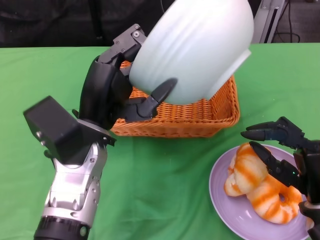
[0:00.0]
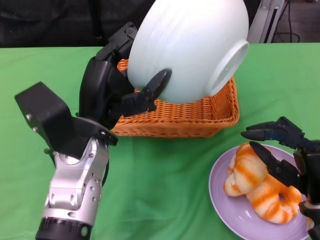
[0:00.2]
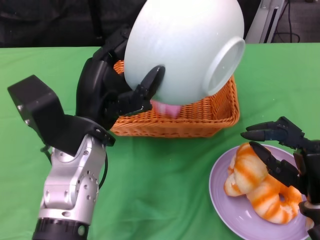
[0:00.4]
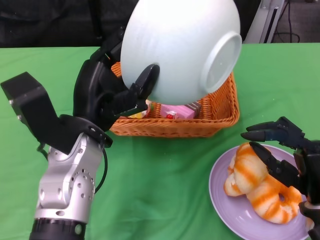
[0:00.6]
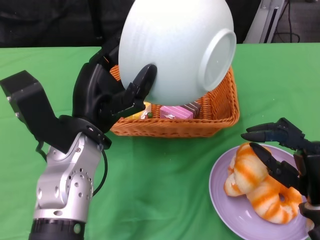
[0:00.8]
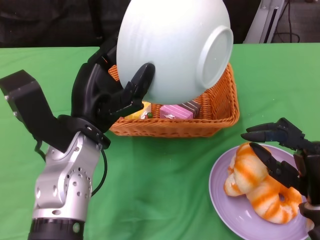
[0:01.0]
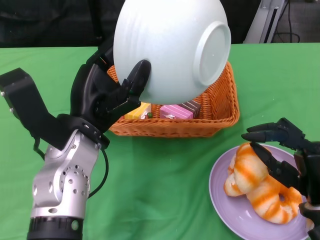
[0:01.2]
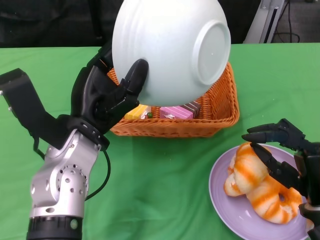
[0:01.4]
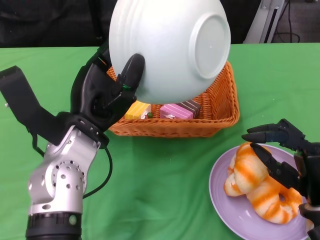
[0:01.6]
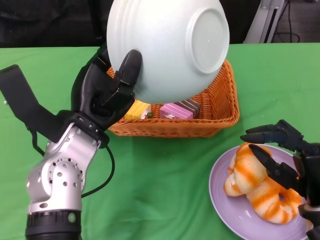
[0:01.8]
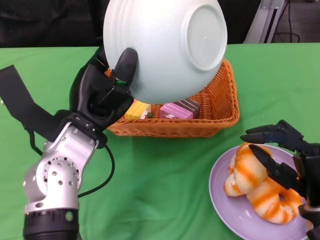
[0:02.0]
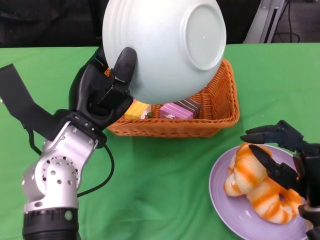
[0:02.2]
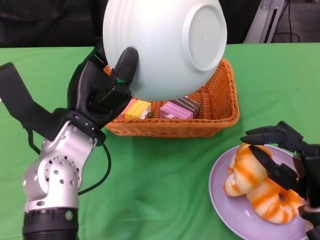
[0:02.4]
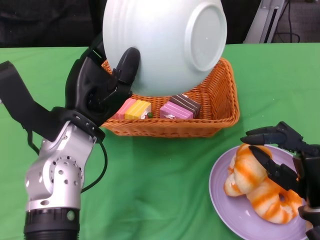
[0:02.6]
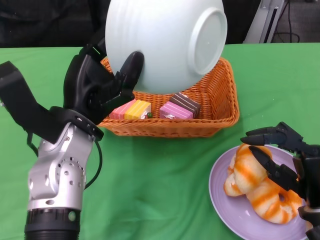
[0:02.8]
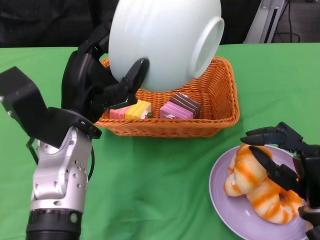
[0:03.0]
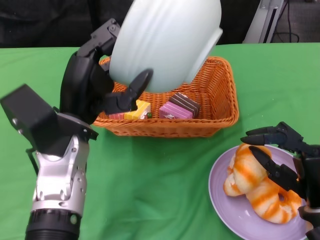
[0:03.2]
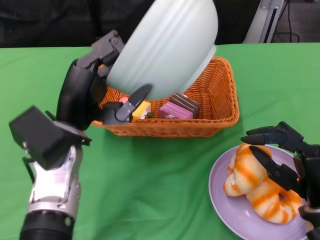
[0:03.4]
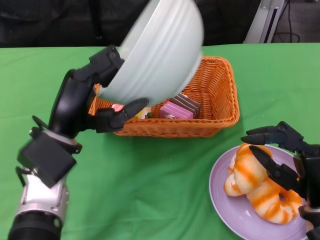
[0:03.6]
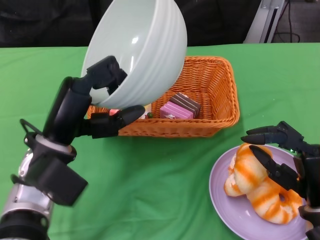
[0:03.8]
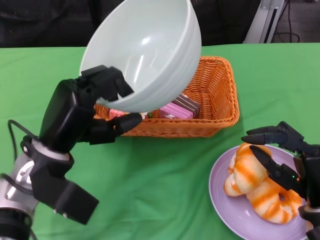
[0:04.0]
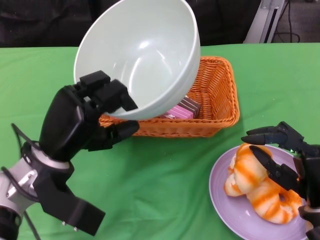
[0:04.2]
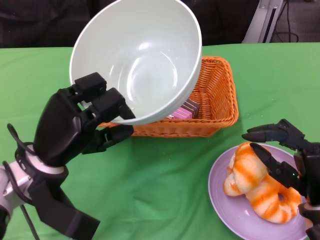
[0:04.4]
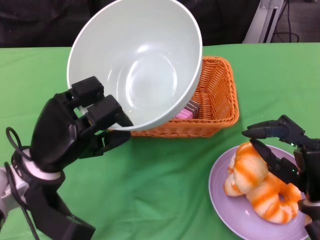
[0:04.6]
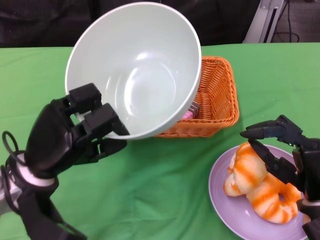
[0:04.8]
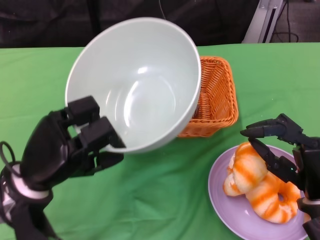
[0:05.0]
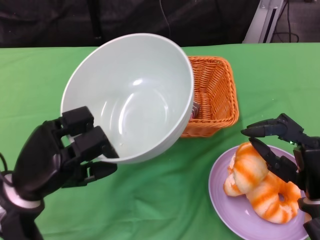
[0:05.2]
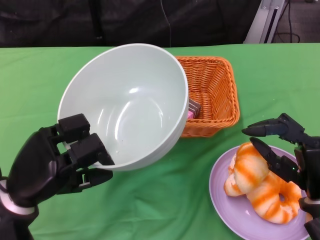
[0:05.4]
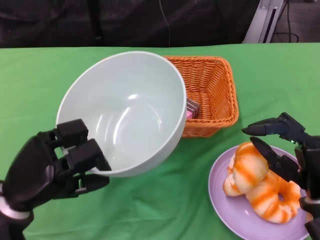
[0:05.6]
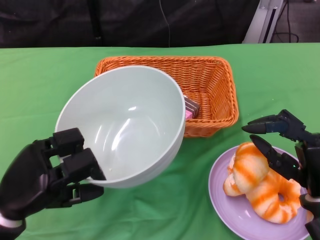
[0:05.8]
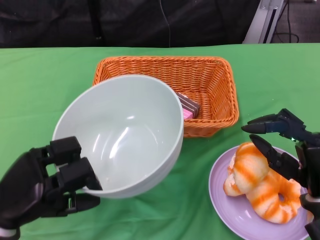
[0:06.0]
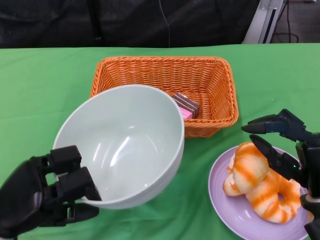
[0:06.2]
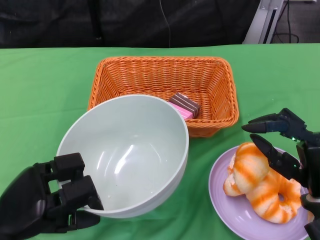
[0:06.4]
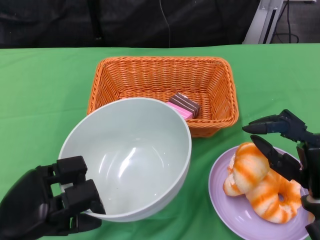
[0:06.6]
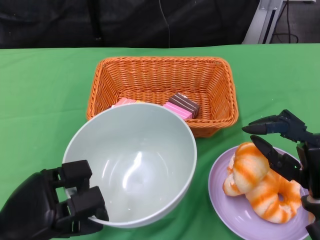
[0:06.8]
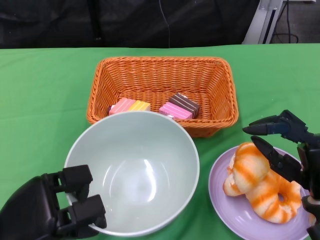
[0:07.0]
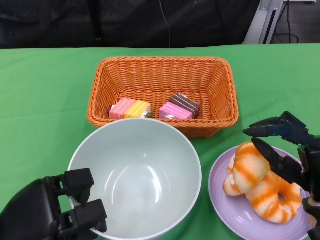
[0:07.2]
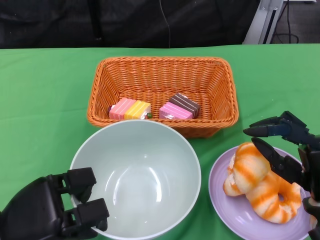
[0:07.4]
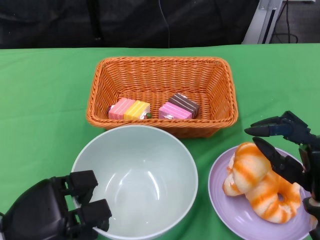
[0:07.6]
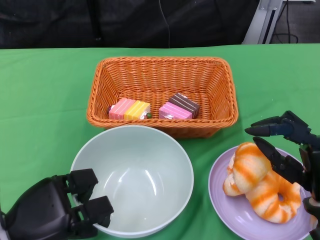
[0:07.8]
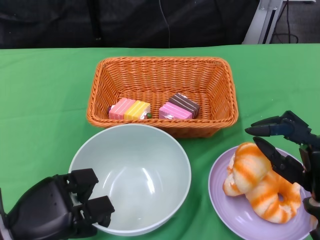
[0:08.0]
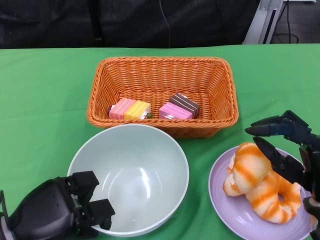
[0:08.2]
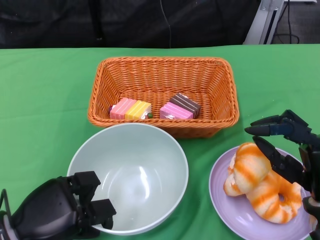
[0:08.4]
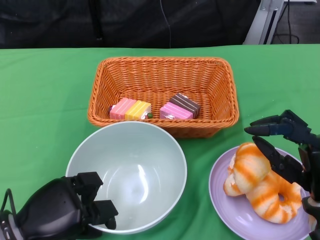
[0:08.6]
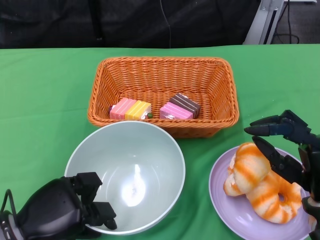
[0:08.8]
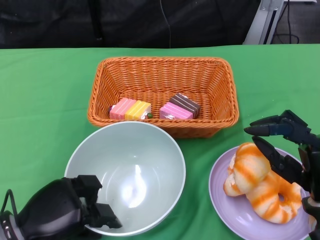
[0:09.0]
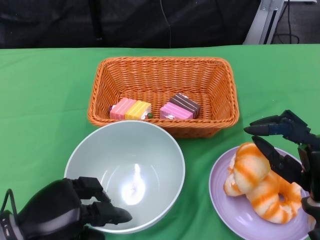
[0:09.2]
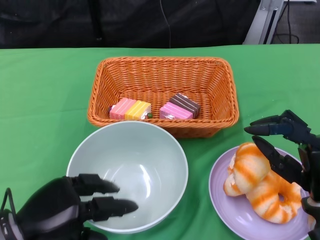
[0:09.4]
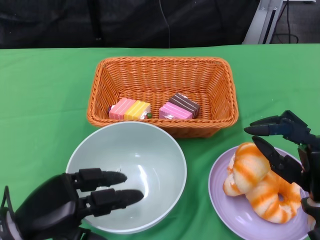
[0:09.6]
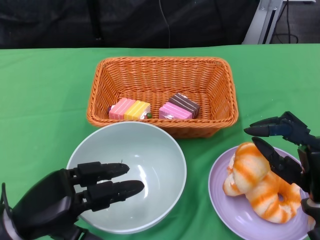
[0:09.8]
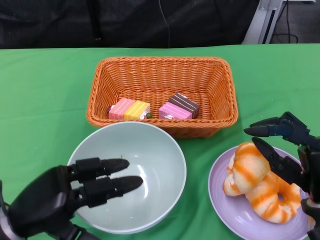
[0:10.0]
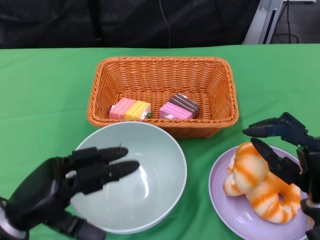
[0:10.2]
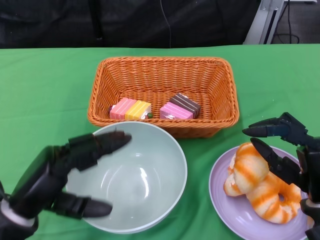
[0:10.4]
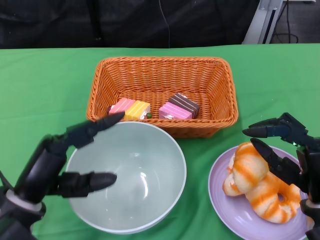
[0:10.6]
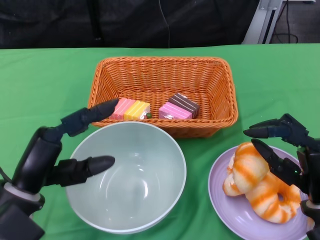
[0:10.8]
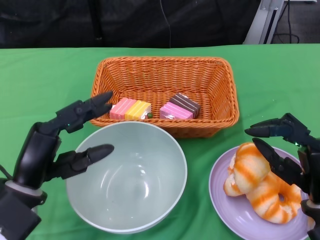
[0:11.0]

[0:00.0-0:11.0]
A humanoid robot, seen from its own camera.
Step, 0:00.0 to 0:03.4: Pour the cake into the basket with the left gripper.
Step, 0:03.6 to 0:10.6: Place the bowl on the table with the left gripper.
0:03.2 to 0:04.8: The left hand moves downward and to the left, some 10 cm.
0:04.8 to 0:06.2: The left hand is displaced backward and to the left by roughly 10 cm.
0:07.8 to 0:09.4: The hands stay close to where they were, moving slightly.
0:09.4 to 0:11.0: The left hand moves about 5 cm.

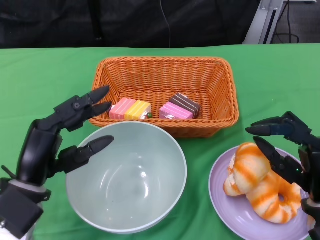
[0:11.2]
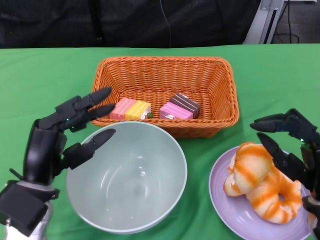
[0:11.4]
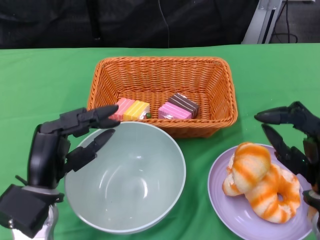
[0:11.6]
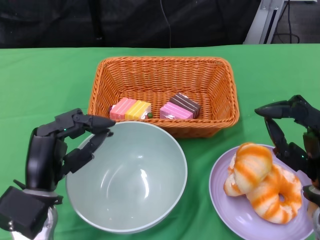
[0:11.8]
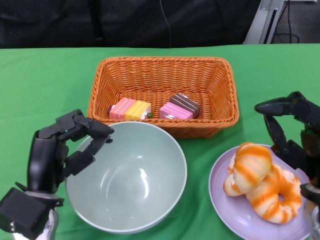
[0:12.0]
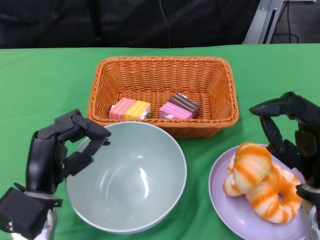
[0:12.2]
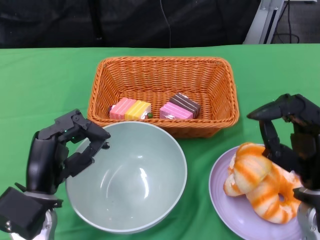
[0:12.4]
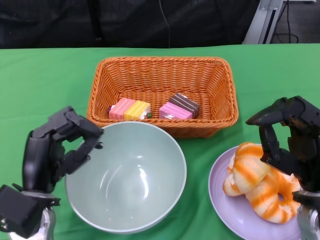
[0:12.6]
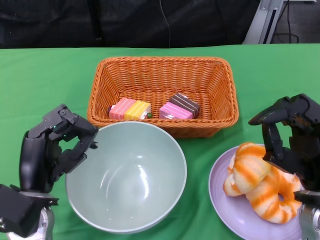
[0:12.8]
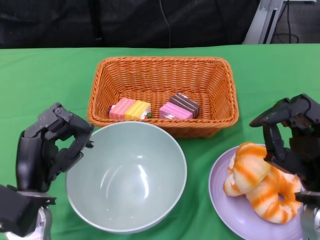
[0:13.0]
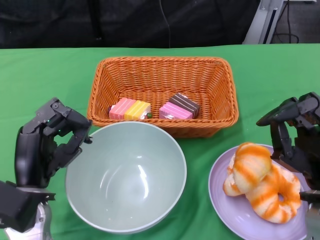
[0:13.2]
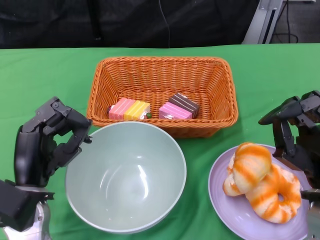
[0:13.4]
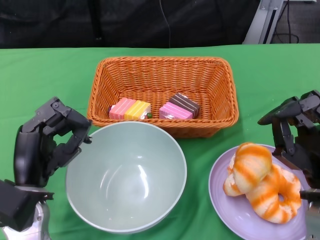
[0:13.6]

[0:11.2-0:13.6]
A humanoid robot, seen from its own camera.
0:11.2 to 0:12.4: The hands stay close to where they were, moving slightly.
0:12.4 to 0:13.6: The hands make only small movements.

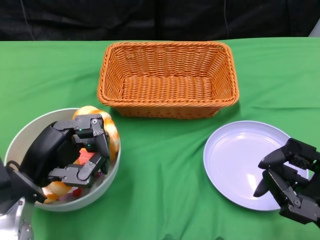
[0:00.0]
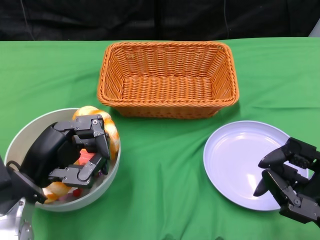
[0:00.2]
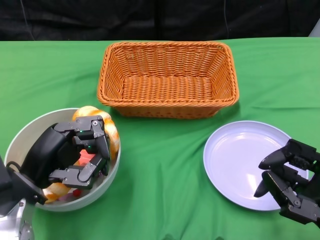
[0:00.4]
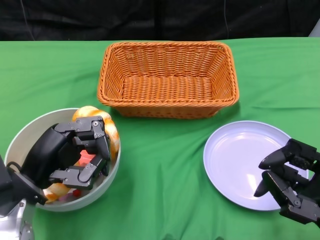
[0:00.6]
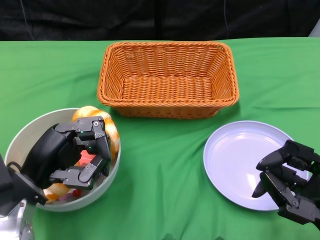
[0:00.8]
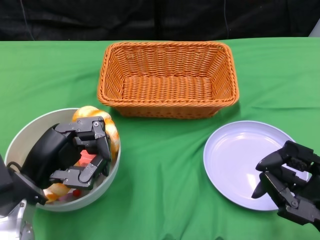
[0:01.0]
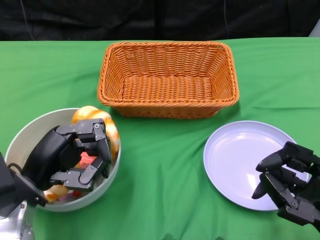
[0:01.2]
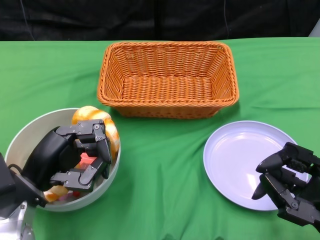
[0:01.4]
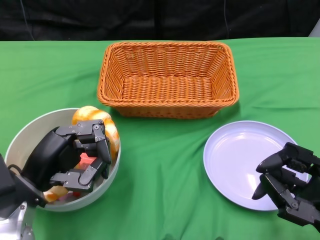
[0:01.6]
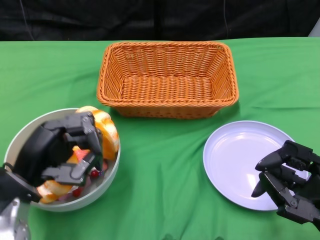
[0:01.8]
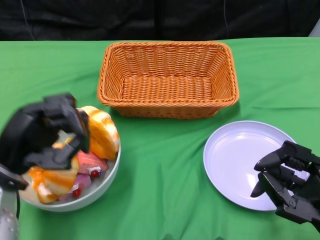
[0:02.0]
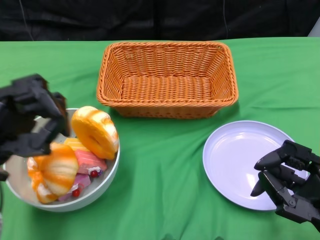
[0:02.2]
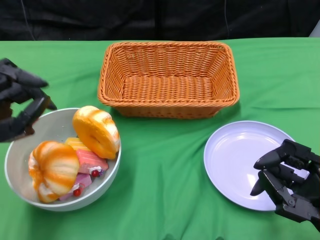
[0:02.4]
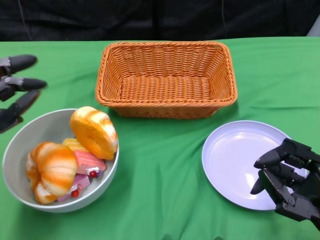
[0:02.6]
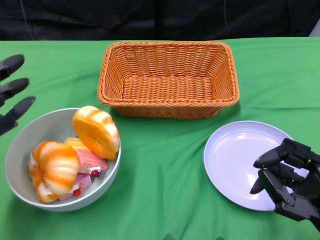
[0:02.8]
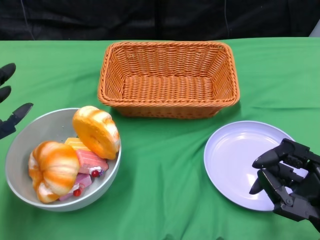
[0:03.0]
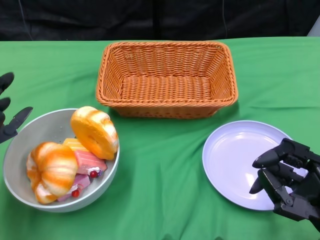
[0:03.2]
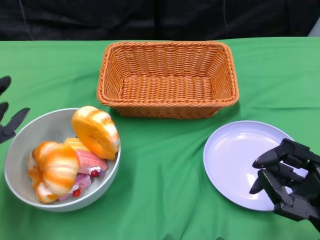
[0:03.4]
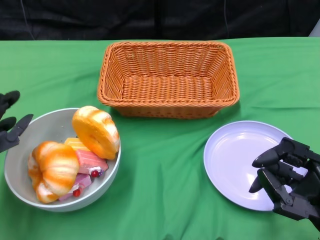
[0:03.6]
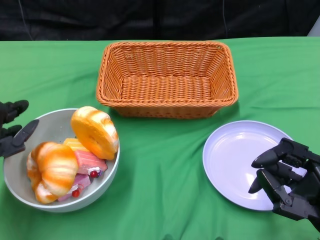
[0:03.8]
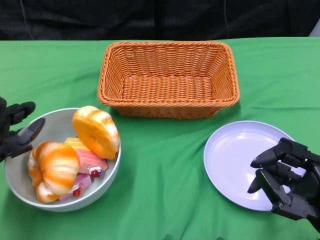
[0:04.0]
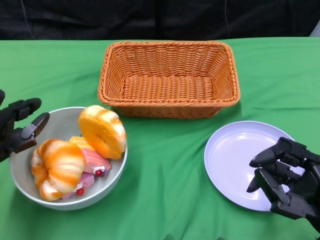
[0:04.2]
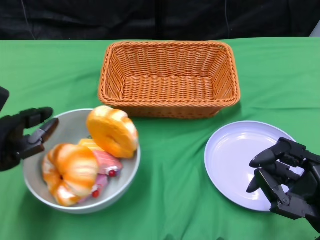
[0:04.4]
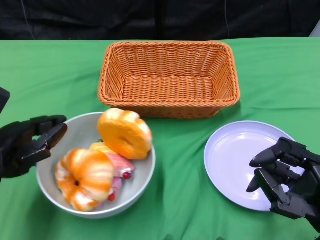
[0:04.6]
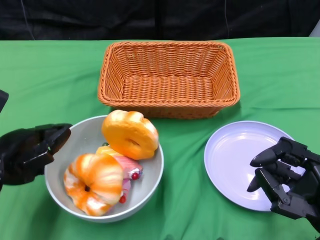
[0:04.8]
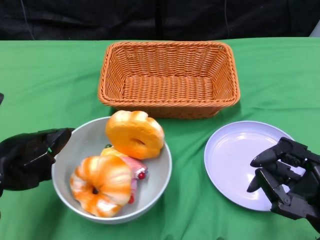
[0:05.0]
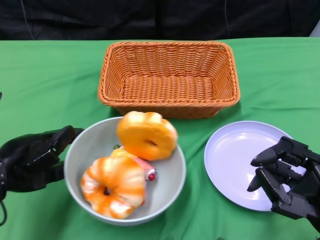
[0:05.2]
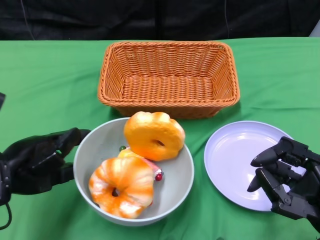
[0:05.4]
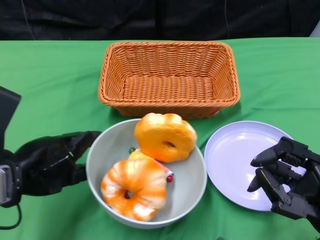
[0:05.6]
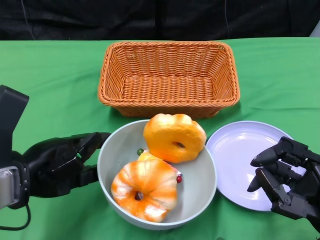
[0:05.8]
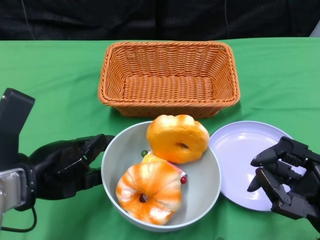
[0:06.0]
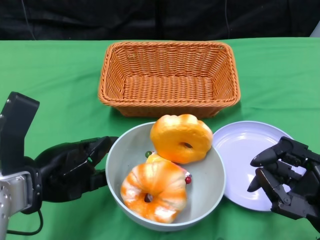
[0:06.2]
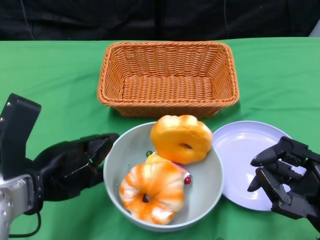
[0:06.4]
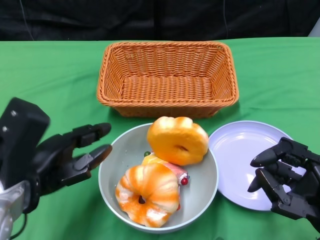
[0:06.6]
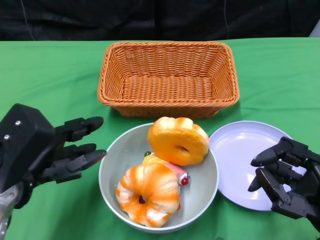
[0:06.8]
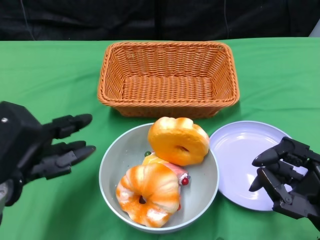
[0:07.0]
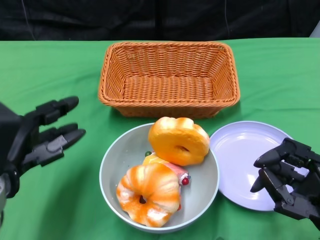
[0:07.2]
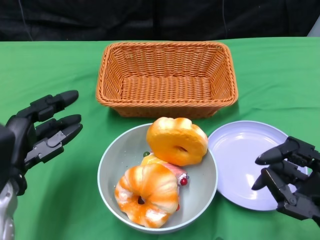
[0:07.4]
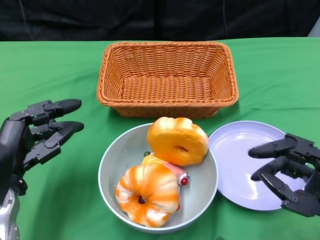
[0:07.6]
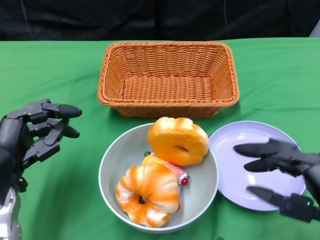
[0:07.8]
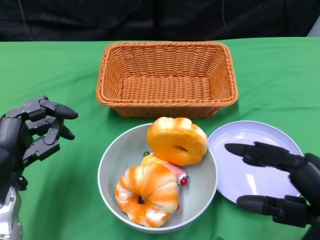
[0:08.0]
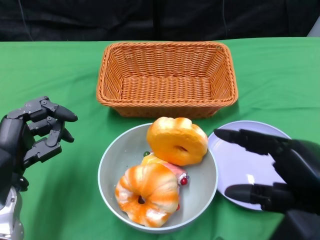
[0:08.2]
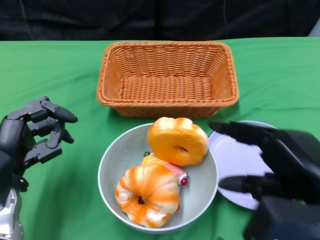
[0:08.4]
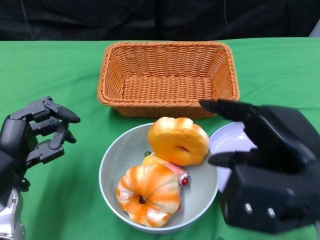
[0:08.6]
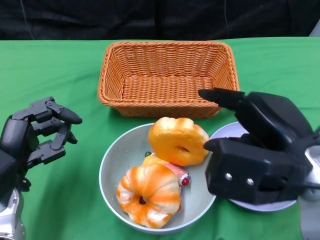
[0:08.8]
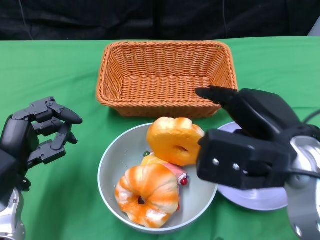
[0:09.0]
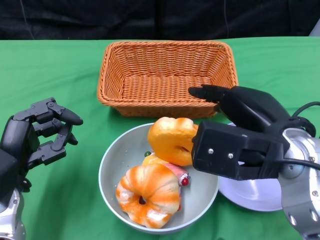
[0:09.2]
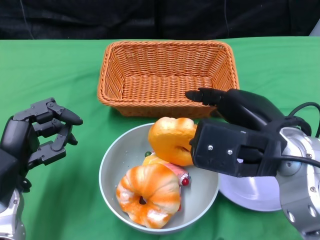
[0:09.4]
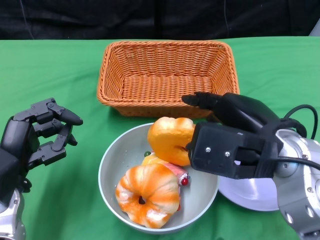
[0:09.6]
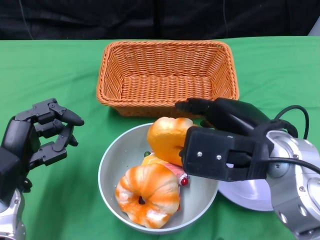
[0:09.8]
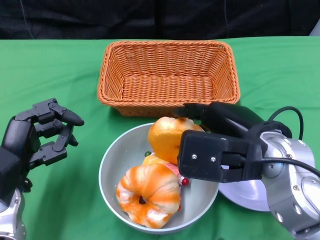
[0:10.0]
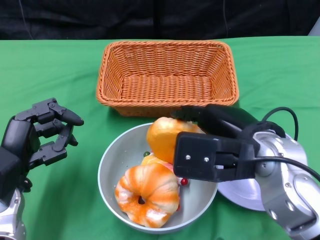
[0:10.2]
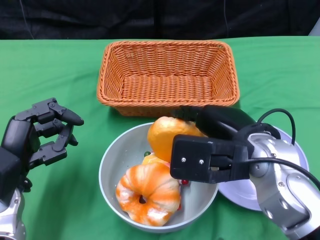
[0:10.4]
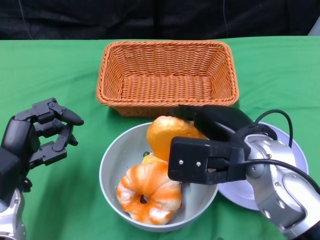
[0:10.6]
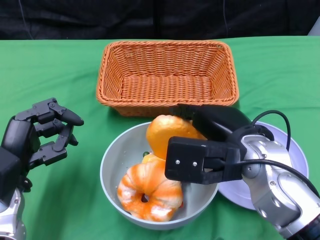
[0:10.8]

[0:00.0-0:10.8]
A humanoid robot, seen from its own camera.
Step, 0:00.0 to 0:06.8: Push the bowl to the center of the table using the left gripper.
0:01.6 to 0:03.0: The left hand is displaced to the left by roughly 5 cm.
0:04.6 to 0:06.2: The left hand is displaced to the right by about 5 cm.
0:06.2 to 0:07.8: The left hand is displaced downward by approximately 5 cm.
0:07.8 to 0:09.2: The right hand is displaced to the left, forward and upward by about 15 cm.
0:09.2 to 0:10.8: The right hand ends up some 5 cm from where it was.
